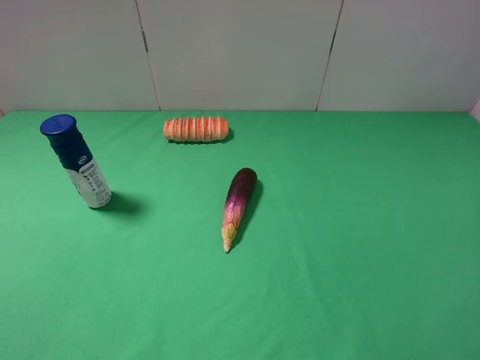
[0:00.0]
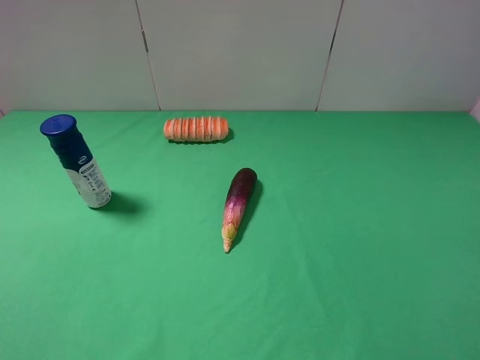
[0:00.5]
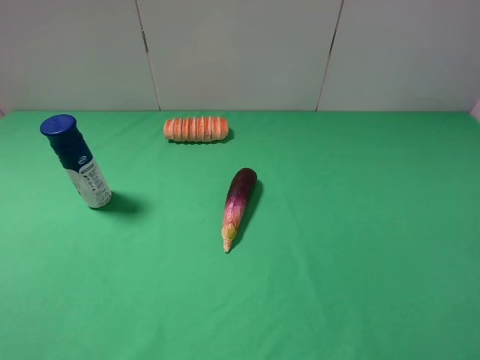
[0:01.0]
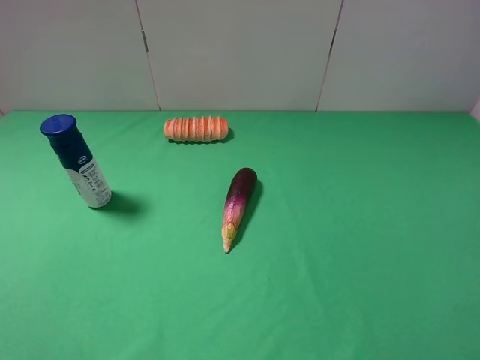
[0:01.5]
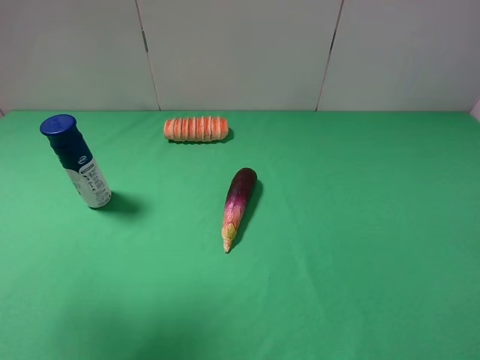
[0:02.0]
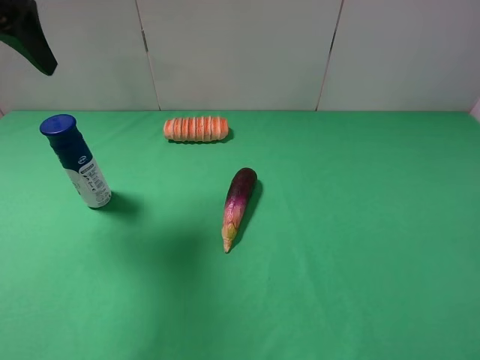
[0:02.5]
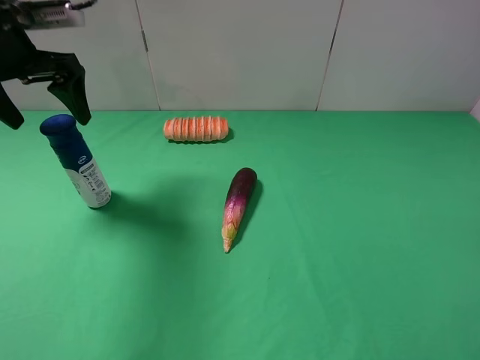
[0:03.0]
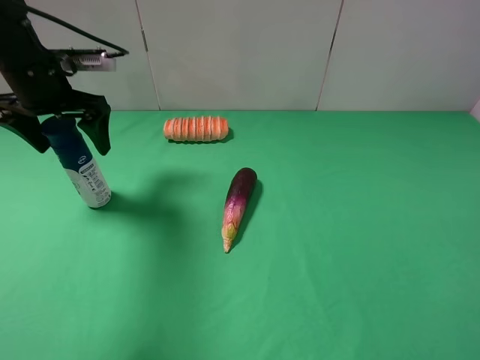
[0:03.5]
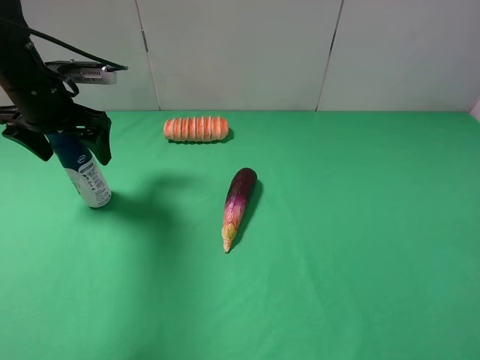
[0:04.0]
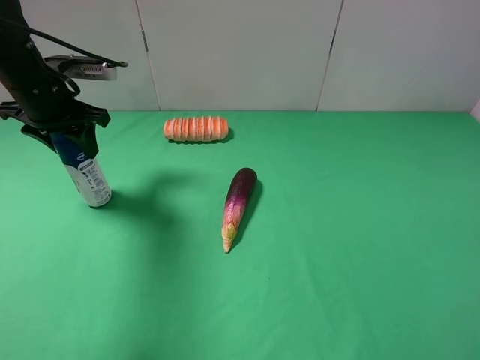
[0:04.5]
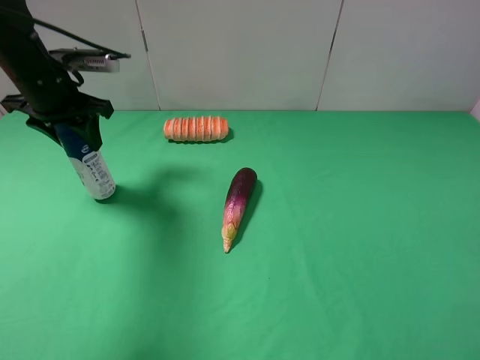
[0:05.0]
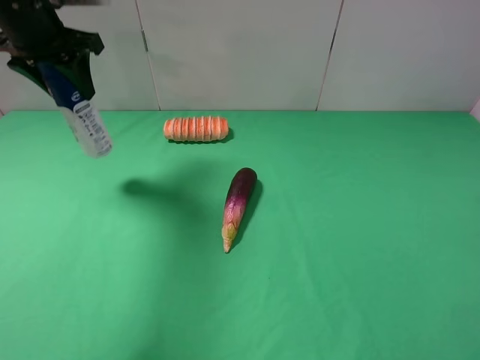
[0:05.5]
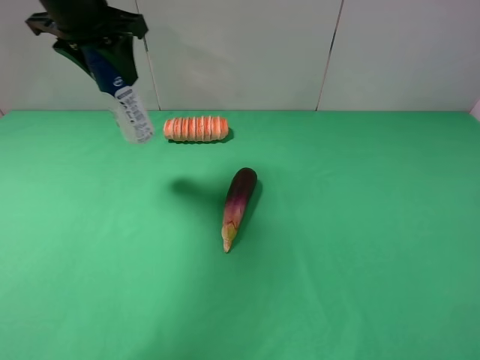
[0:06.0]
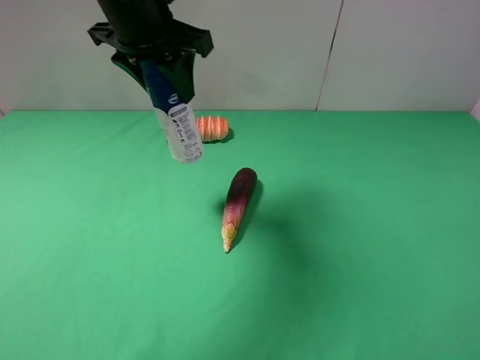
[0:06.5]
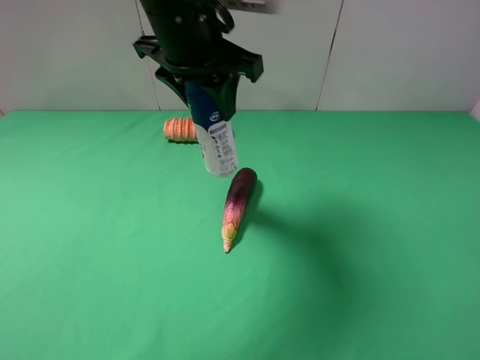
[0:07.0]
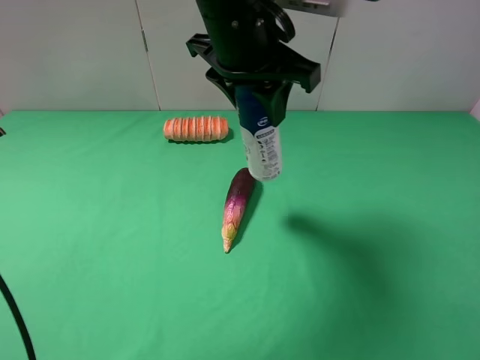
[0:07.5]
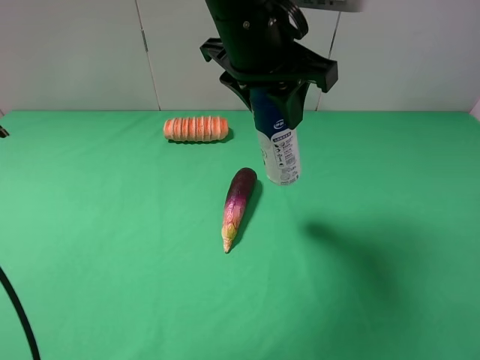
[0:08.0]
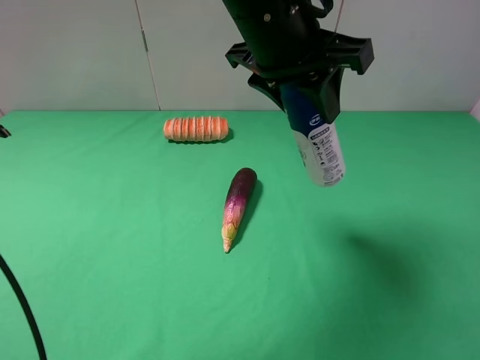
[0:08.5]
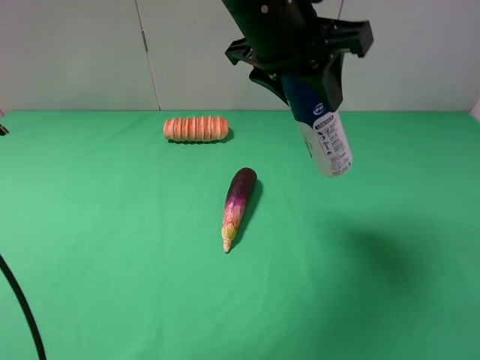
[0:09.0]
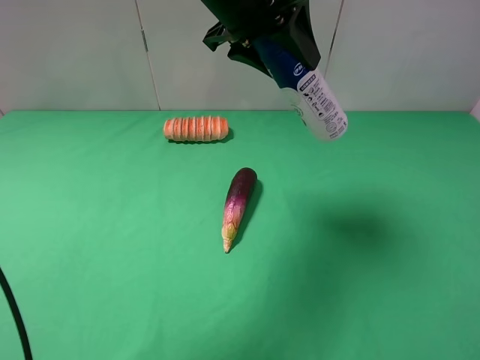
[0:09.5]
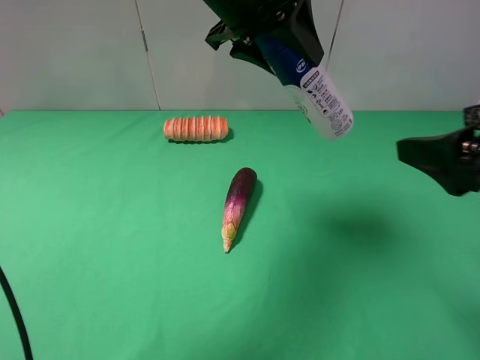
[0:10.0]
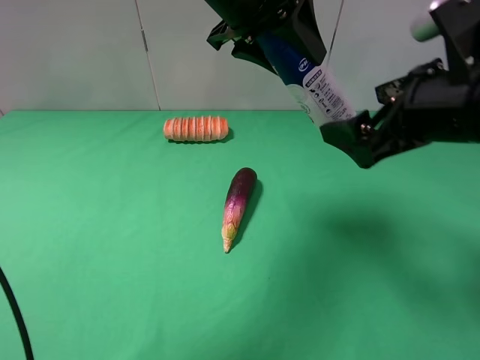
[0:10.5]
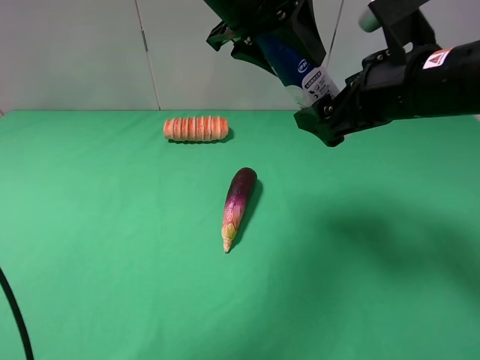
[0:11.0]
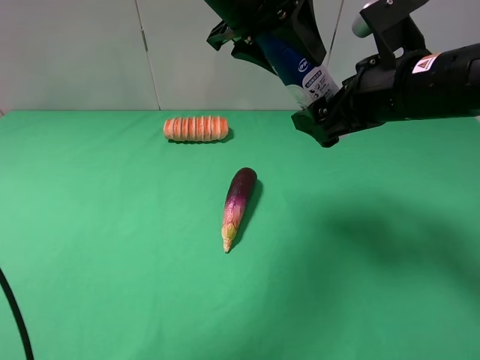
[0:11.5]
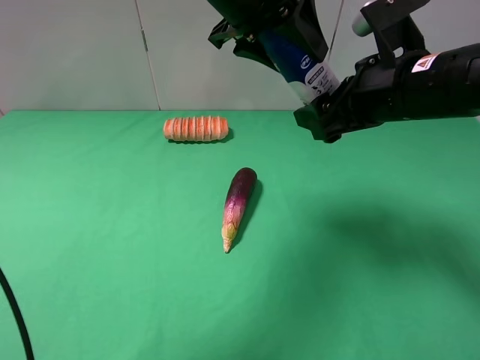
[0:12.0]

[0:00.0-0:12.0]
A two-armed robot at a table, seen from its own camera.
Task of the whole recording: use the left gripper to pick up the item and transfer it from the left gripper to the right gripper.
Step, 0:00.0 to 0:04.0: Use the left gripper to grab the yogurt on the left side of the table.
0:00.0 to 0:02.0: The left gripper is displaced forward and upward by approximately 20 cm.
0:02.0 to 0:04.0: The left gripper moves forward and downward, approximately 25 cm.
0:04.0 to 0:06.0: The left gripper is displaced upward and to the right by some 15 cm, and closes its fingers.
0:06.0 to 0:08.0: The left gripper shifts roughly 20 cm to the right and backward.
0:08.0 to 0:10.0: The left gripper changes place by some 5 cm. The right gripper heads forward, covering approximately 15 cm.
0:10.0 to 0:12.0: The right gripper shifts approximately 15 cm forward and to the left, and closes up.

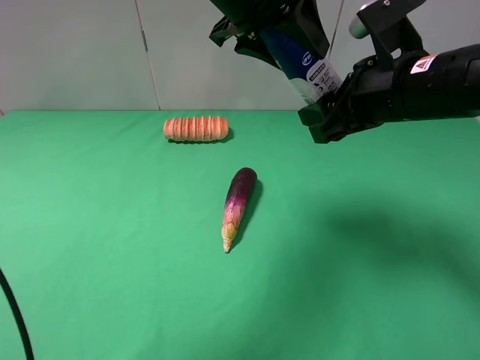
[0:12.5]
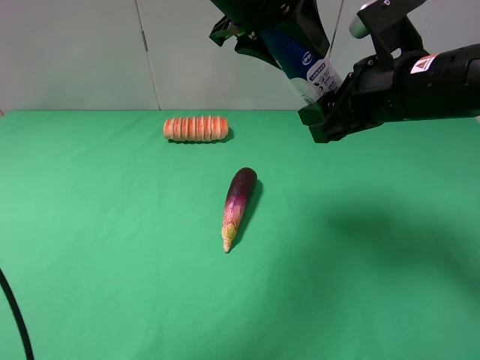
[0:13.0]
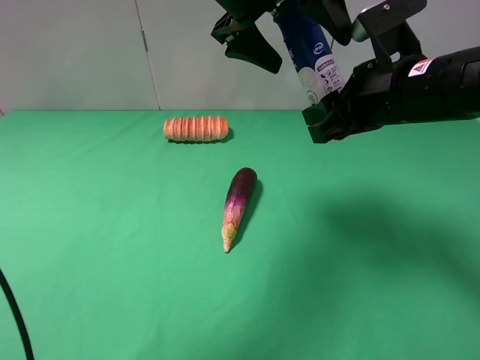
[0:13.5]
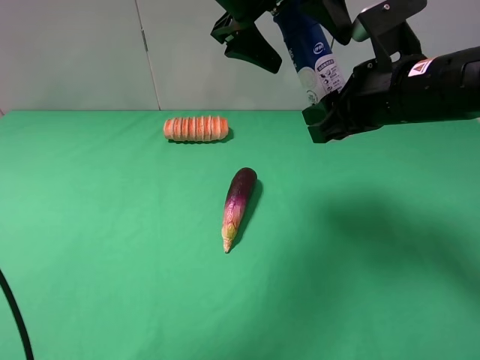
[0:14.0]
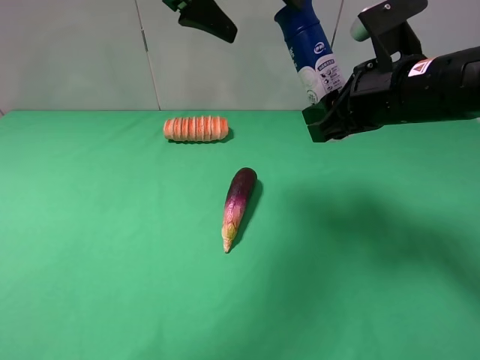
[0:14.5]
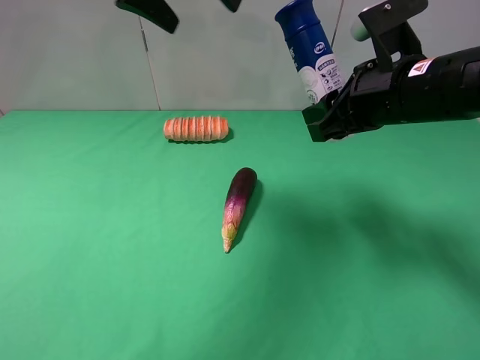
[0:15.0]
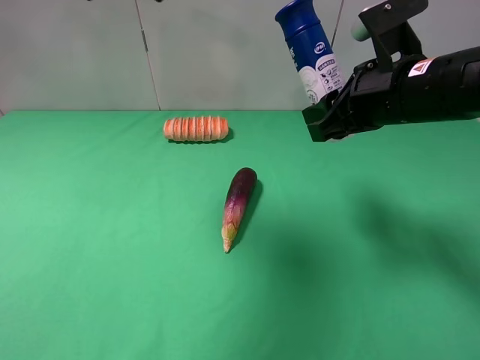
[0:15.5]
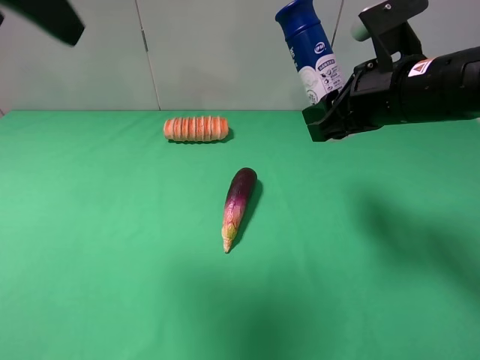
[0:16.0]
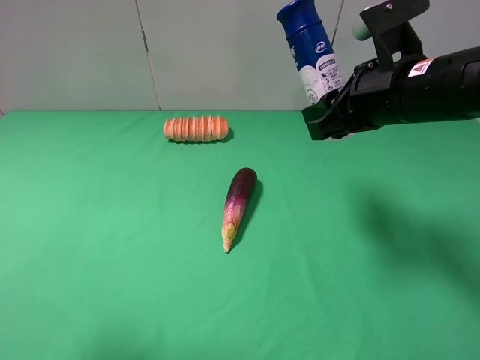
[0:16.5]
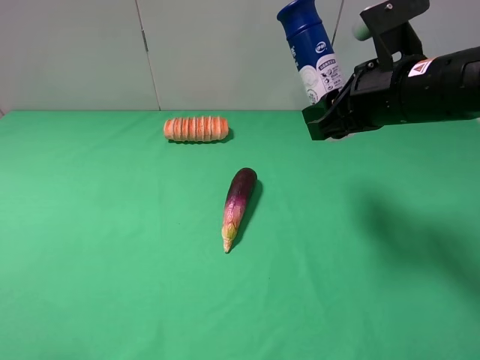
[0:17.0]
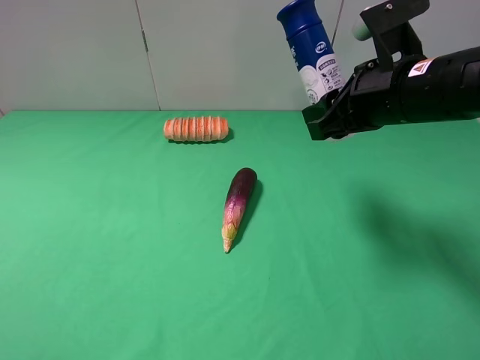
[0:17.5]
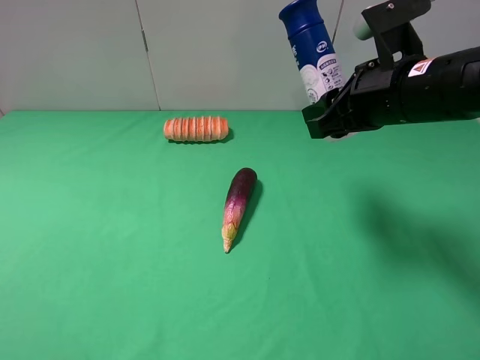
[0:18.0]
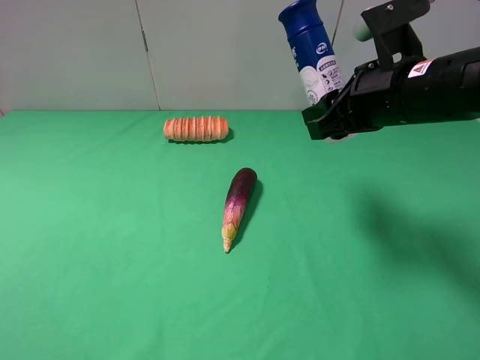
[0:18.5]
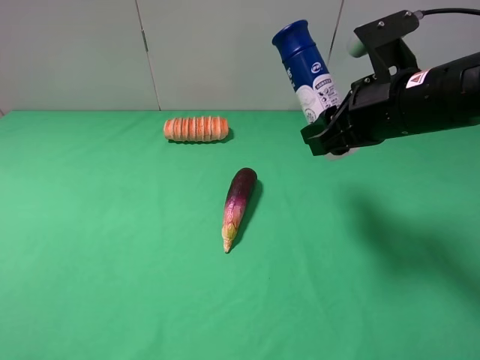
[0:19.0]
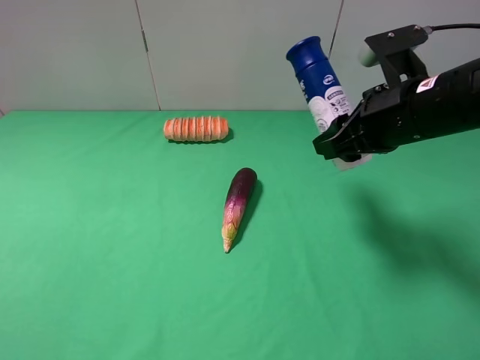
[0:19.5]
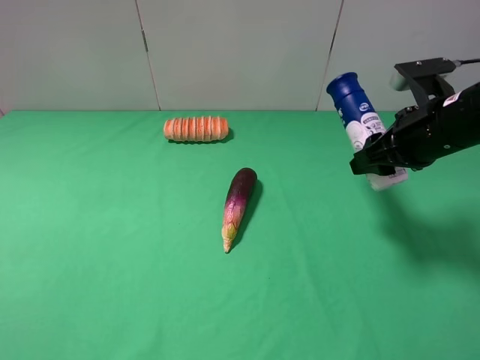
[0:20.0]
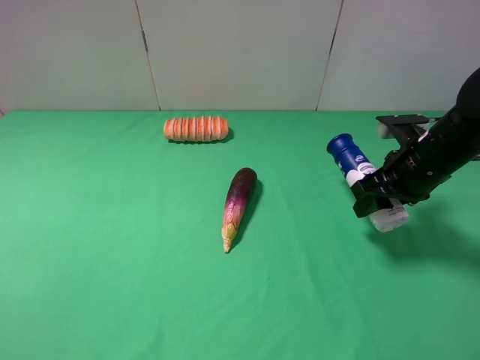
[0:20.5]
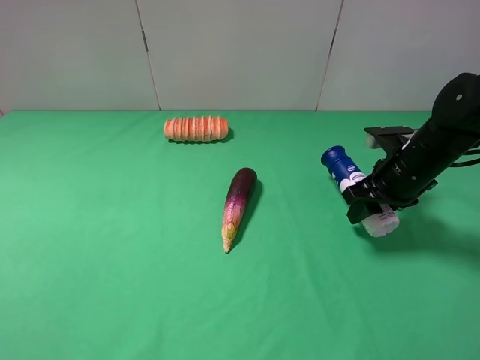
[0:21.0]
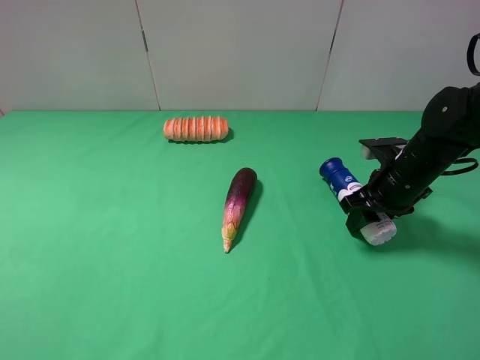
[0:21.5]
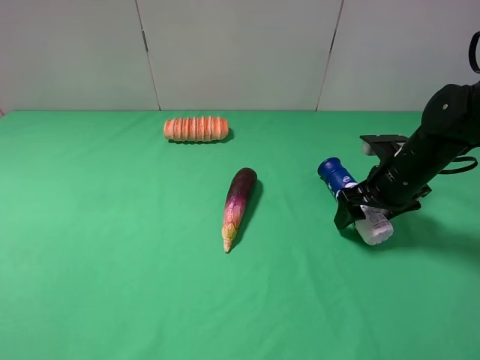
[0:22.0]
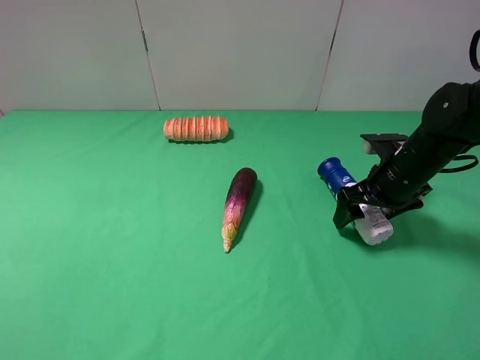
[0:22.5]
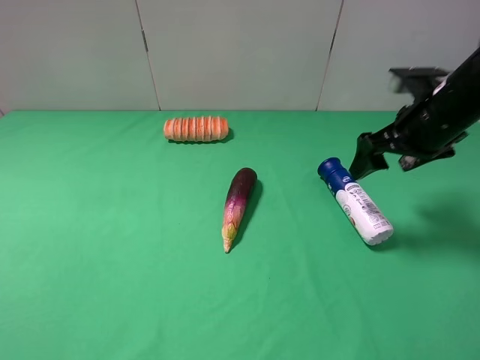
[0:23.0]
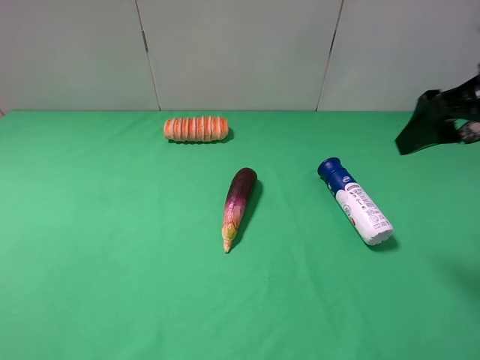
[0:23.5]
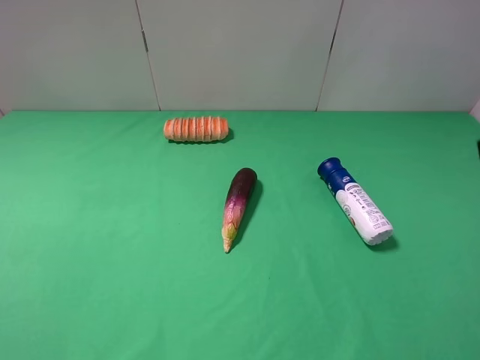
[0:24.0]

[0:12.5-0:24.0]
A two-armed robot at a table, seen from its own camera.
Task of the whole recording: use the left gripper to pick up the item and transfer it from the left gripper to the right gripper.
Step, 0:14.0 to 0:22.5: The right gripper places yogurt on the right side of the table.
0:12.5 to 0:14.5: The left gripper goes about 5 cm to the left, and opens.
0:14.5 to 0:16.5: The left gripper shifts roughly 35 cm backward and to the left.
0:16.5 to 0:18.5: The left gripper heads backward and downward, covering some 10 cm.
0:18.5 to 0:20.0: The right gripper shifts approximately 5 cm to the right.
0:20.0 to 0:22.0: The right gripper shifts about 10 cm downward, and opens its fingers.
0:22.0 to 0:24.0: The right gripper moves upward and backward, about 30 cm.

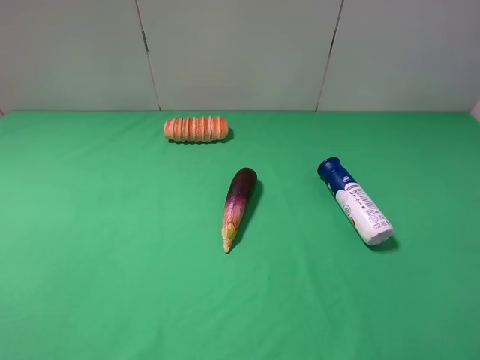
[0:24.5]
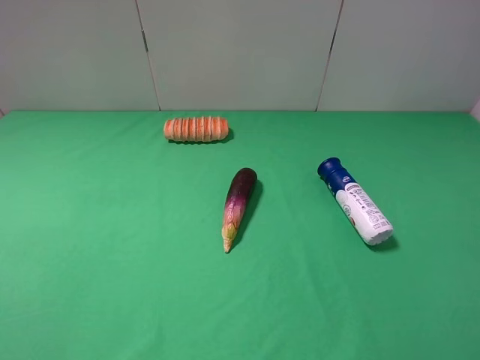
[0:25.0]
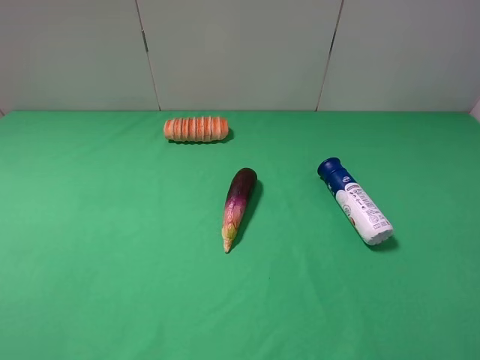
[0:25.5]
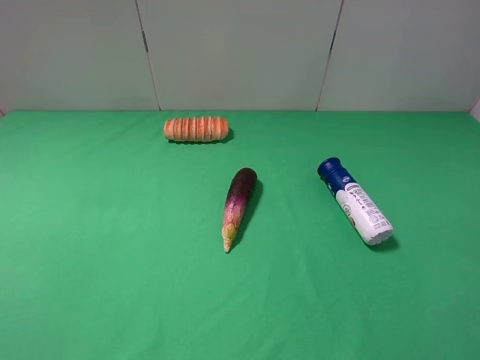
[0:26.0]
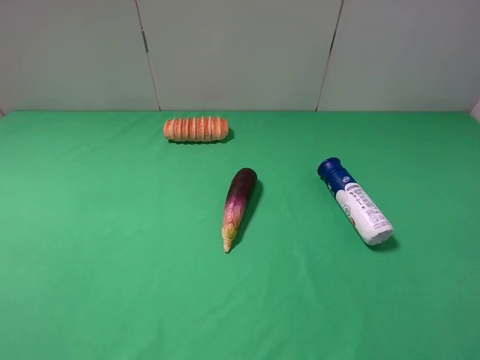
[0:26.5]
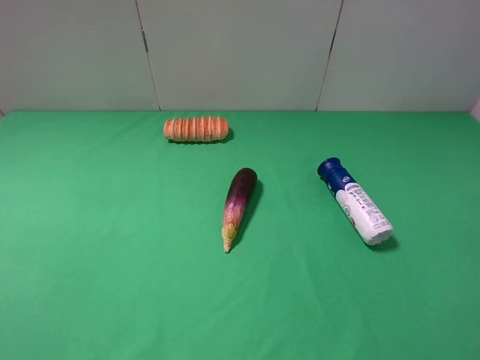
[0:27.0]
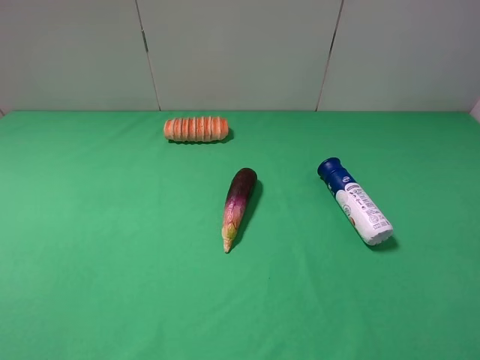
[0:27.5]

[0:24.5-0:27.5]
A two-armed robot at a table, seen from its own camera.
Task of the whole recording: use the left gripper to pick up the item and transfer it from the left gripper to the right gripper.
0:26.0 to 0:27.5: Both grippers stay put.
